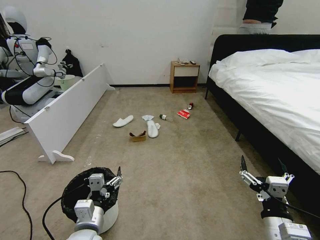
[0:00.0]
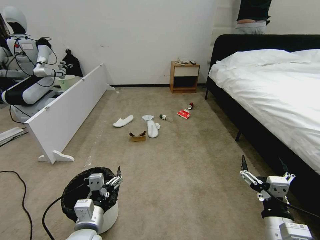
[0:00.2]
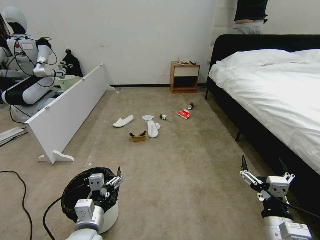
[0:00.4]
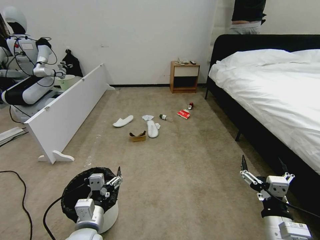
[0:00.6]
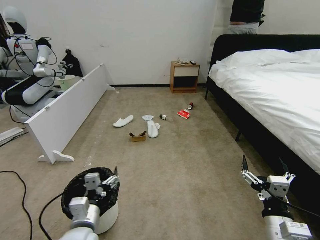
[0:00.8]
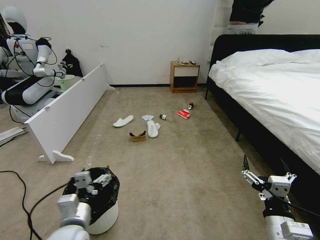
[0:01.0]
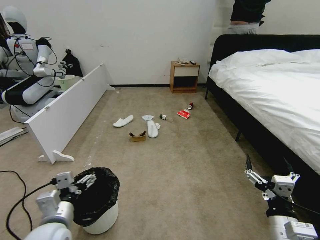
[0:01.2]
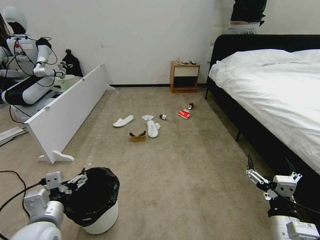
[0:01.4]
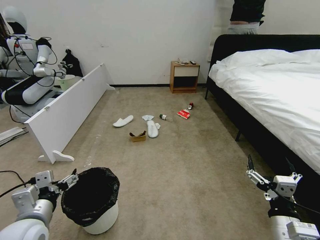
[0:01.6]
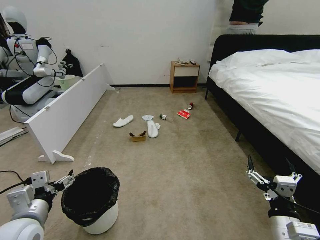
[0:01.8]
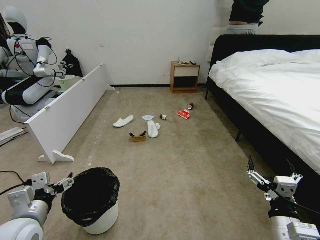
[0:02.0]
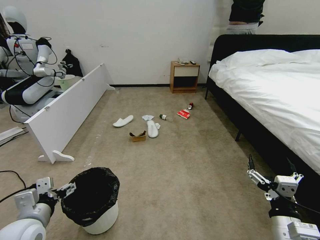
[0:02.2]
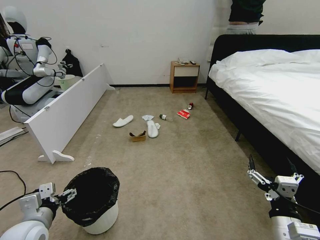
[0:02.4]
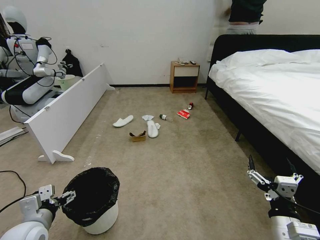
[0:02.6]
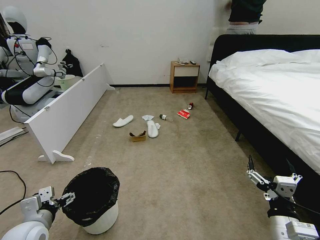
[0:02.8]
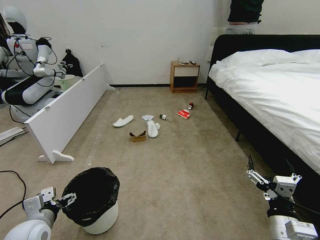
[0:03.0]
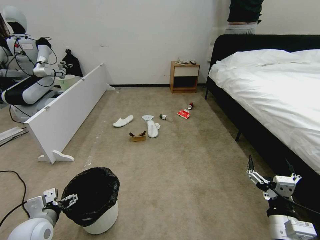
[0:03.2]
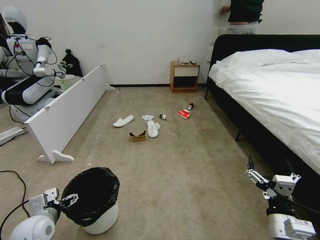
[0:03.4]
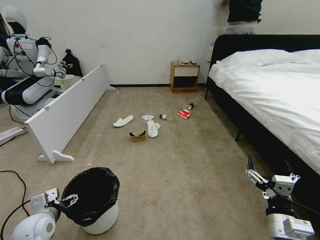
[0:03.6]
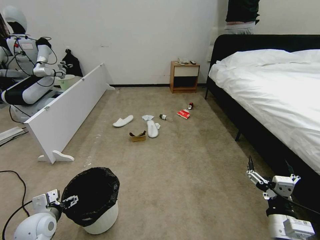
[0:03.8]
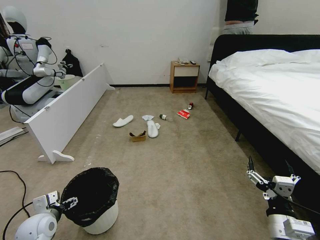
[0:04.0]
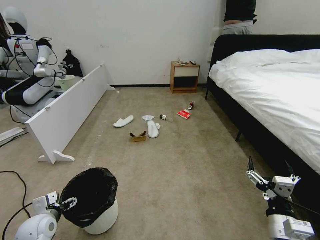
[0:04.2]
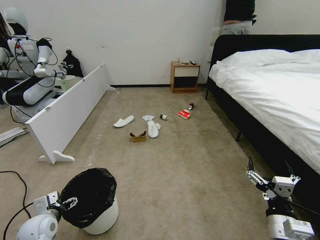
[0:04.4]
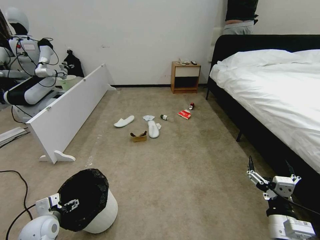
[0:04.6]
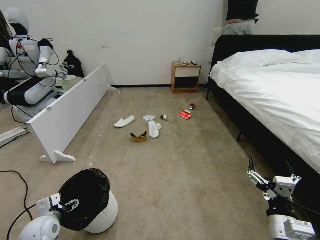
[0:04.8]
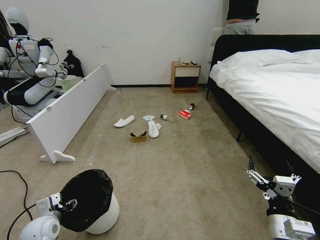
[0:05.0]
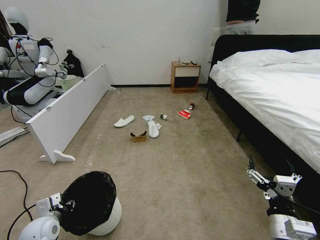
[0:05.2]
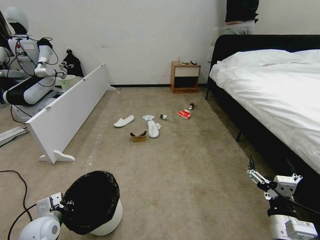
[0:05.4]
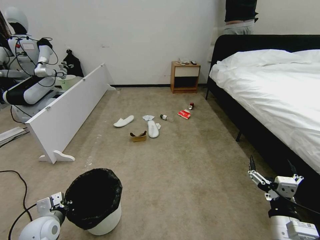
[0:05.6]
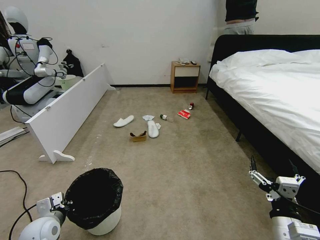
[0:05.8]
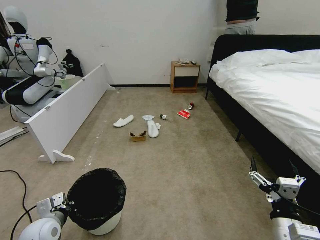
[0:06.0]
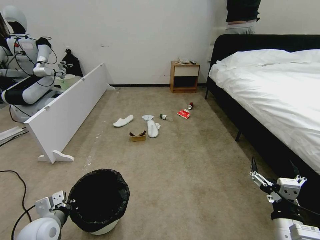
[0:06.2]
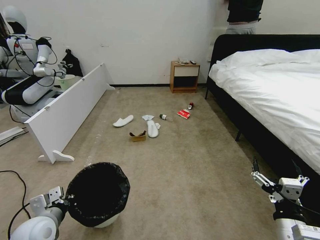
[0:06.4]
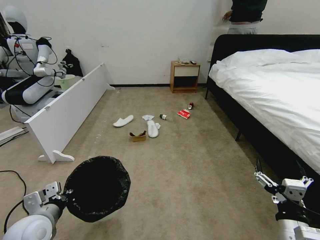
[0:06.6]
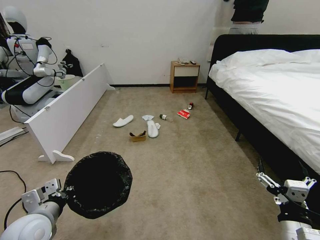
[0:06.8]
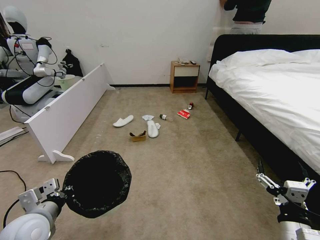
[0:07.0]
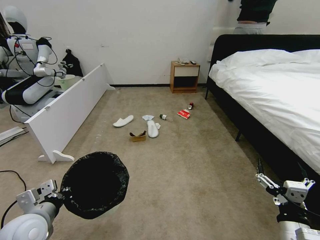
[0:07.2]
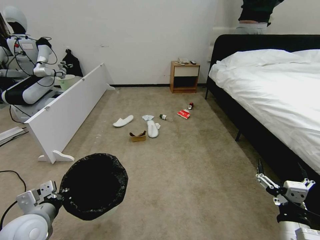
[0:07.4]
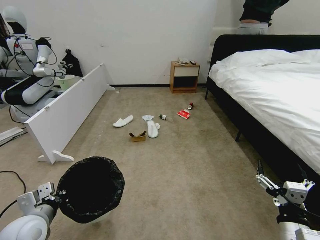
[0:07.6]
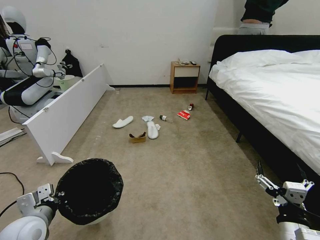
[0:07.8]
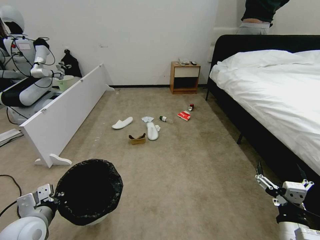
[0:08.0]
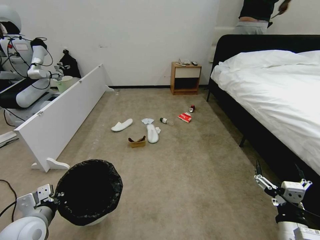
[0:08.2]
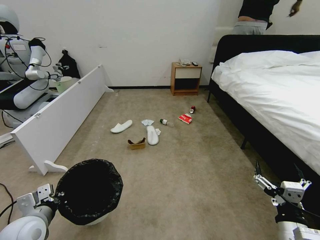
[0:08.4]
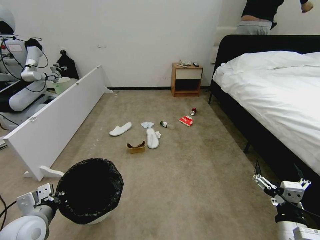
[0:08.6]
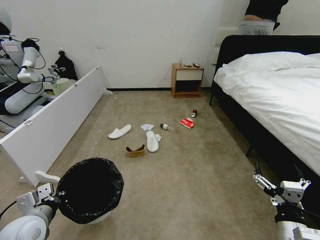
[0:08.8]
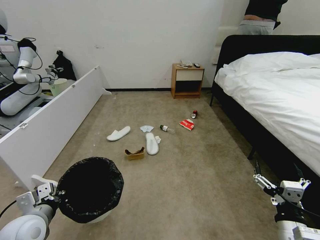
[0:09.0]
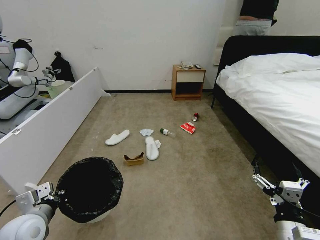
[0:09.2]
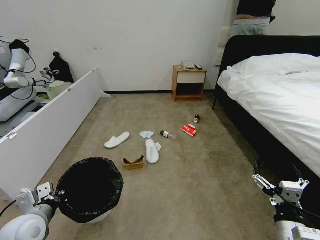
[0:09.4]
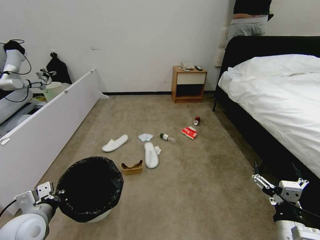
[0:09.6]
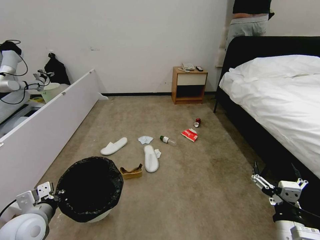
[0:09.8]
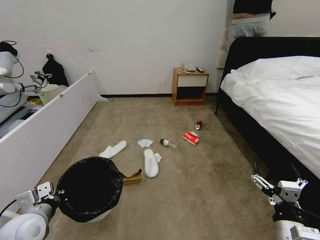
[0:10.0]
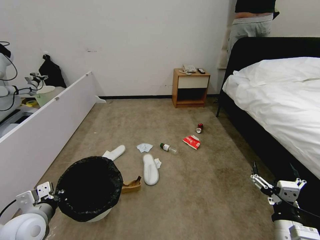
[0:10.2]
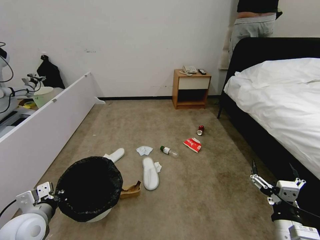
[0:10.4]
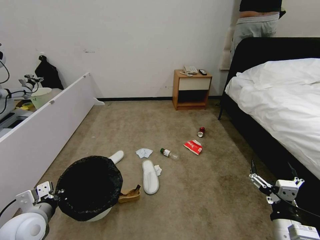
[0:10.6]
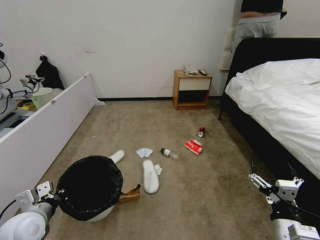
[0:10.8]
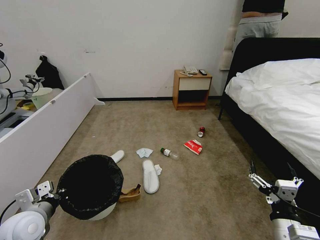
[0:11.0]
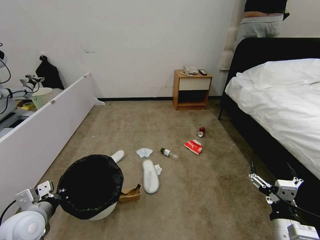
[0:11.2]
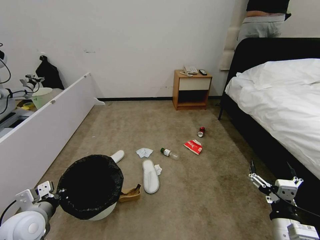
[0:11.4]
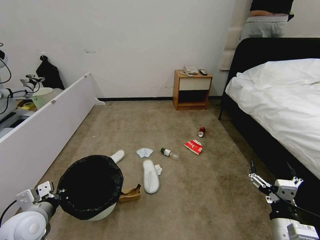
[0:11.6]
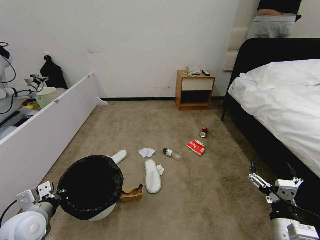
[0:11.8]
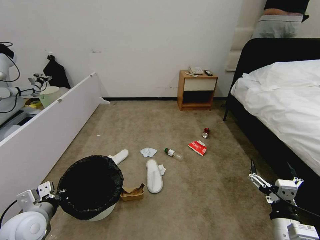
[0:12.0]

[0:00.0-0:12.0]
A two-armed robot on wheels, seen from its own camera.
Task of the whole recording: Pick up the trash bin, then pick up the garbage from the floor and place it into the trash bin.
0:01.6 to 0:03.0: The left gripper travels downward by approximately 5 cm.
0:03.0 to 0:04.4: The left gripper shifts about 5 cm downward.
0:04.4 to 0:06.0: The left gripper closes.
0:06.0 to 0:07.6: The left gripper shifts roughly 10 cm upward.
0:10.4 to 0:12.0: The two grippers keep their place.

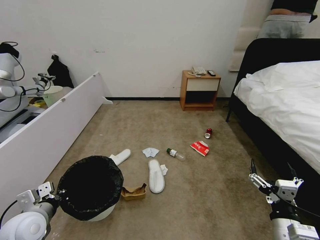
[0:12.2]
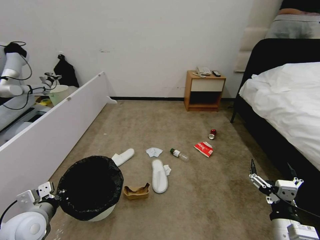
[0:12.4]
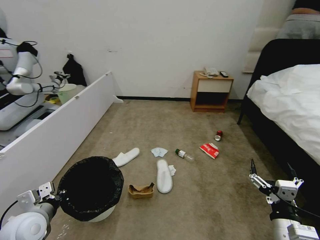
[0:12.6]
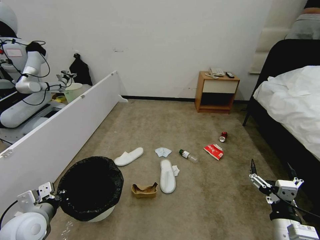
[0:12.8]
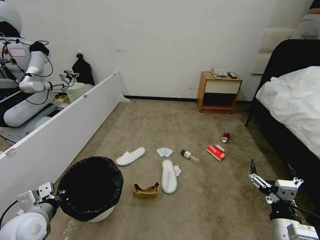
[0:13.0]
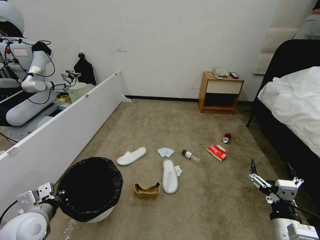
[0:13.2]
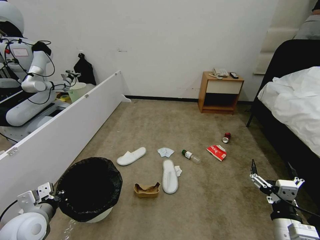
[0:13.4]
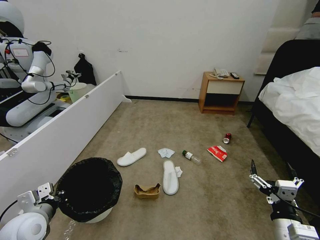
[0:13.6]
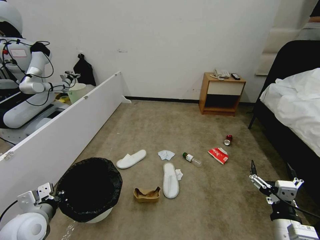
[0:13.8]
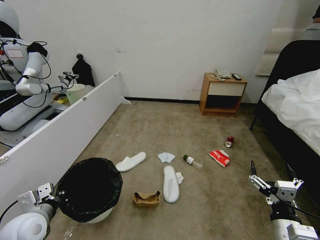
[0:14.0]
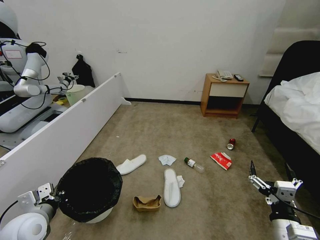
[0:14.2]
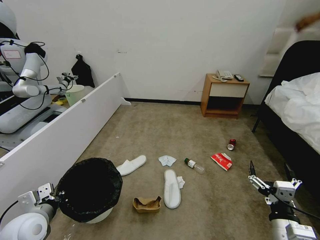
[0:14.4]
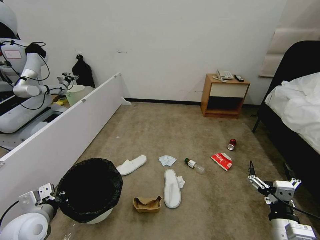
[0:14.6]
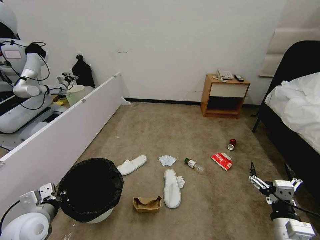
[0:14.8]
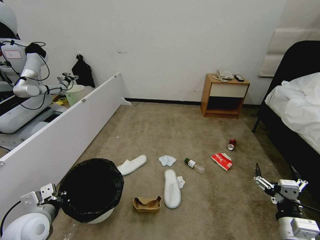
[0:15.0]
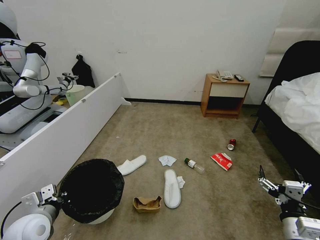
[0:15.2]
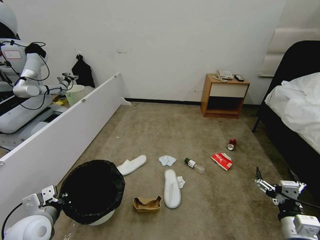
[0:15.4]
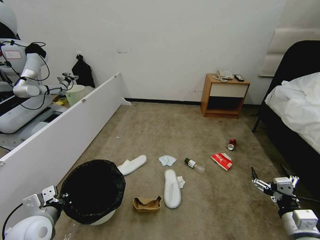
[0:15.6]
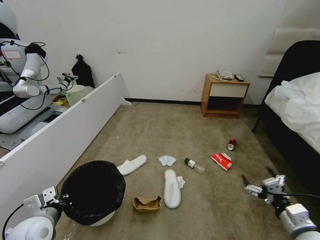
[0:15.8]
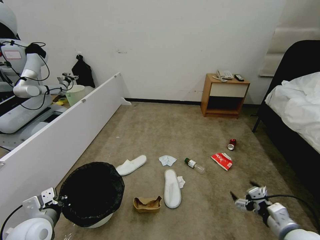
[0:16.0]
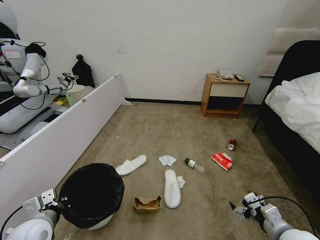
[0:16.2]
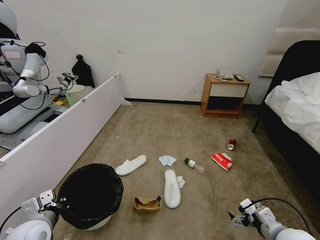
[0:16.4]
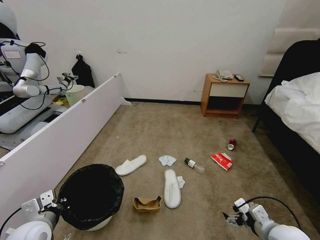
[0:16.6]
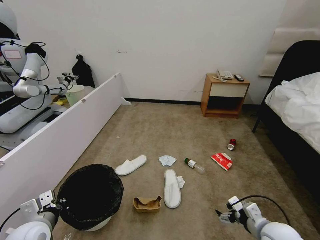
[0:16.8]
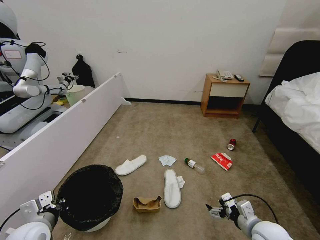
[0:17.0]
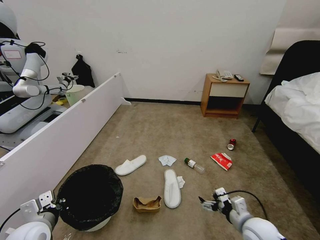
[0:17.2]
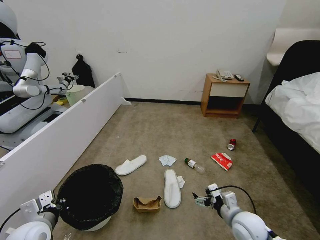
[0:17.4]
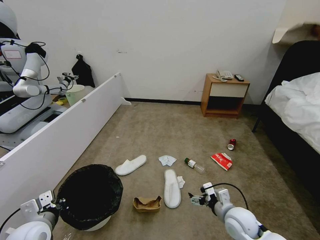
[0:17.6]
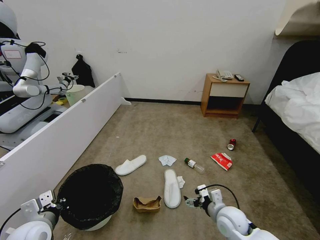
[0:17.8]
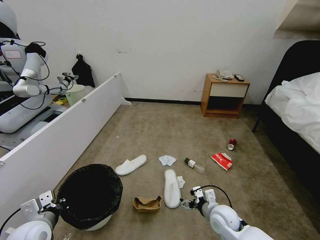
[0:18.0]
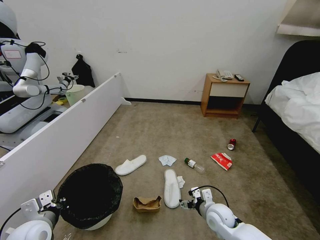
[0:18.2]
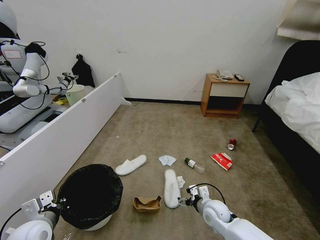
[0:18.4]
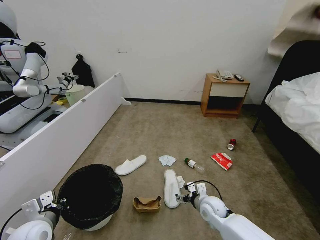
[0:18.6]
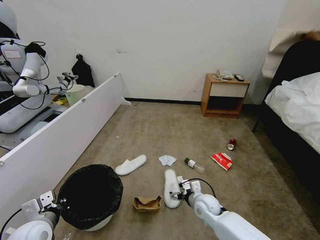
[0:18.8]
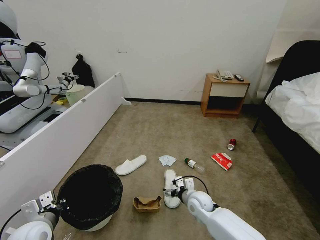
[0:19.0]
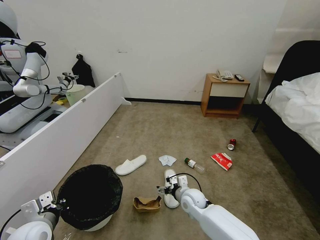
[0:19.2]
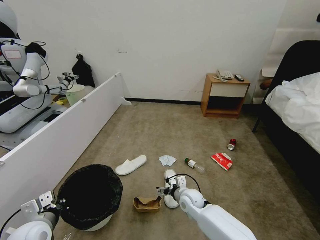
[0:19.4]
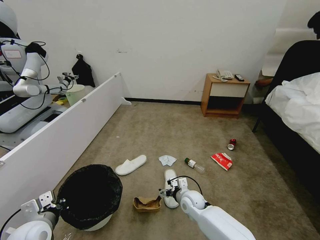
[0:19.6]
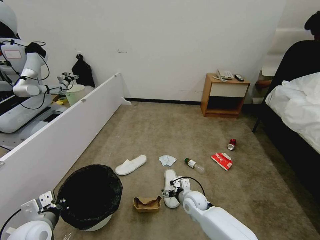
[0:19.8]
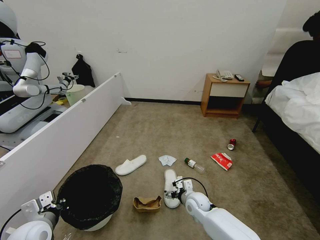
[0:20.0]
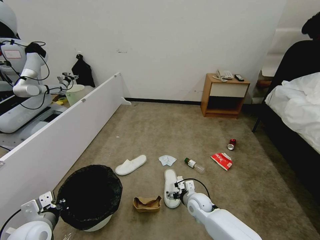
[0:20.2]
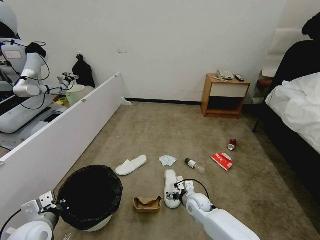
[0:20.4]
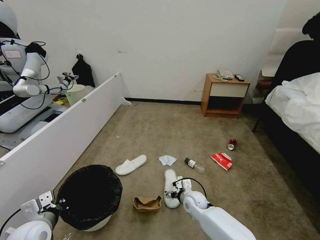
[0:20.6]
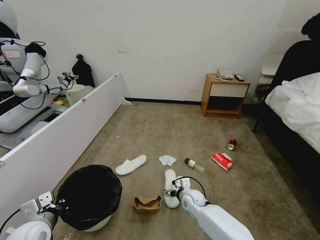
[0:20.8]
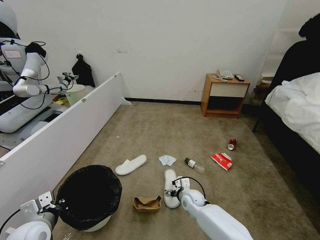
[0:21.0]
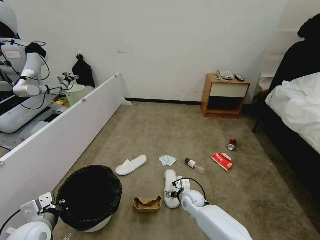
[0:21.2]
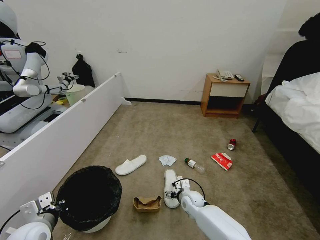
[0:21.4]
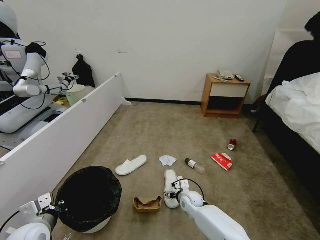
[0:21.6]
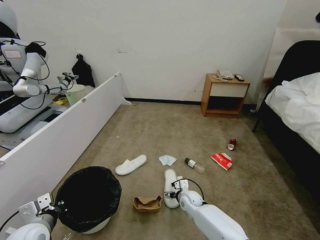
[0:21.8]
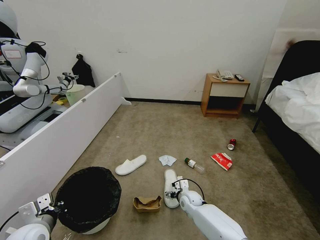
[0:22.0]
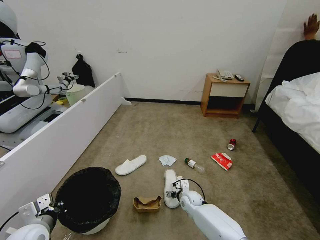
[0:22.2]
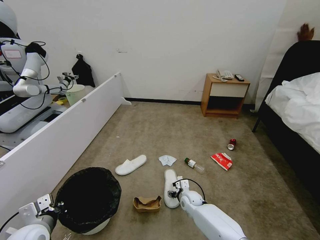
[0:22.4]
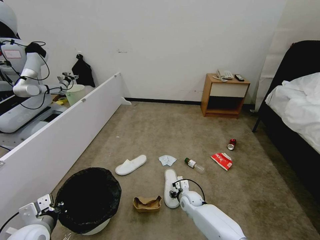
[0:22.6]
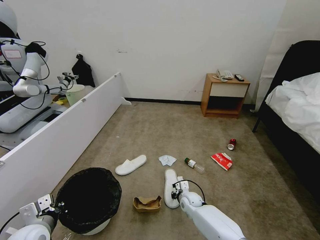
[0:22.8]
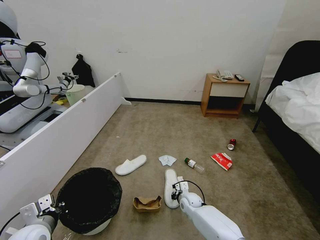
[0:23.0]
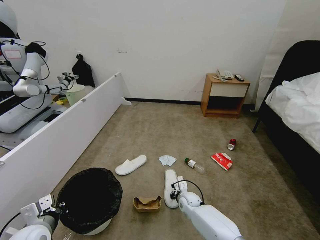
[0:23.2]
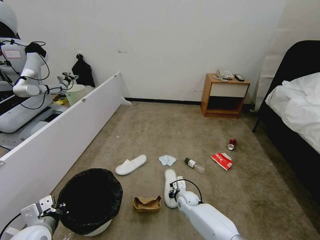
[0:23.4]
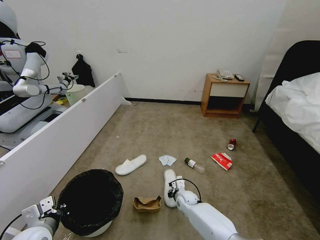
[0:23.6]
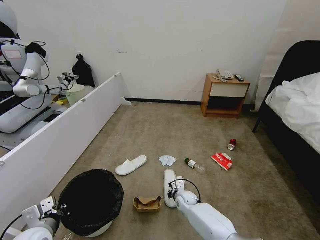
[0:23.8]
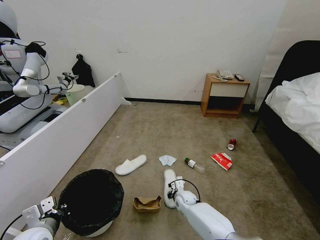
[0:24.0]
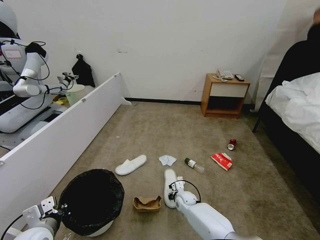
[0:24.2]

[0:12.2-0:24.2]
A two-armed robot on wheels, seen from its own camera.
Task of the whole recording: Pick up the trash bin, then pick up the garbage from the floor and place it into the trash bin.
0:13.8 to 0:15.2: The grippers move only a little.
0:15.2 to 0:16.6: The right gripper shifts approximately 5 cm forward.
0:16.6 to 0:18.2: The right gripper goes approximately 20 cm to the left, forward and downward.
0:18.2 to 0:19.8: The right gripper travels to the left and forward by some 10 cm.
0:19.8 to 0:21.2: The grippers stay close to where they were, moving slightly.
0:21.2 to 0:22.6: The right gripper closes up.
0:22.6 to 0:24.2: The right gripper closes.
